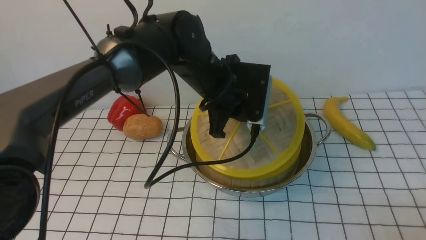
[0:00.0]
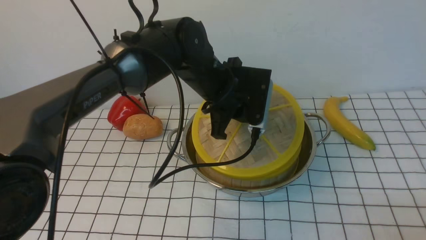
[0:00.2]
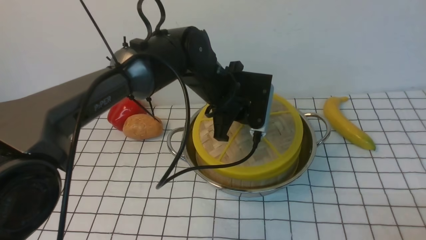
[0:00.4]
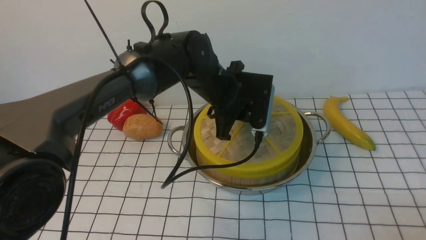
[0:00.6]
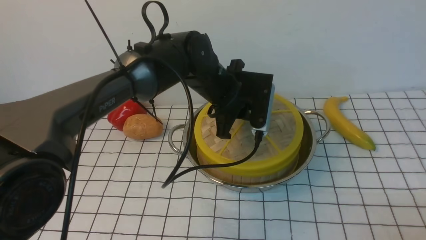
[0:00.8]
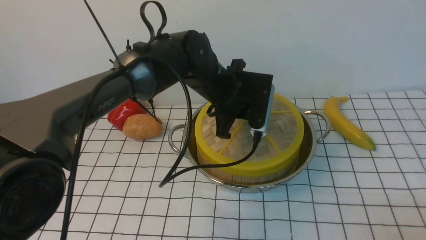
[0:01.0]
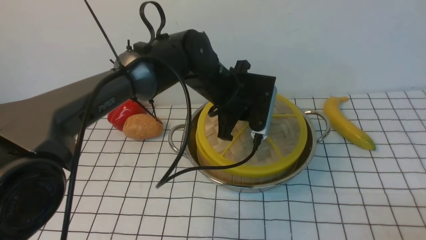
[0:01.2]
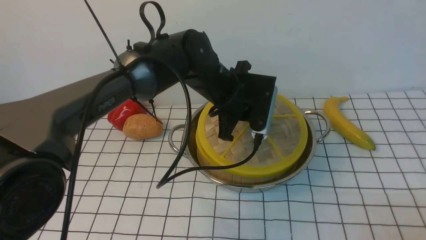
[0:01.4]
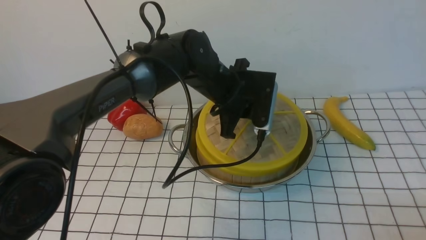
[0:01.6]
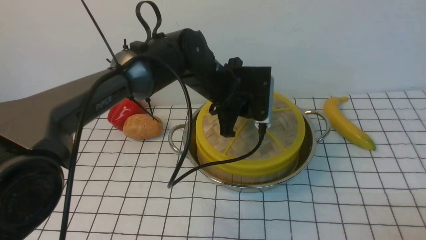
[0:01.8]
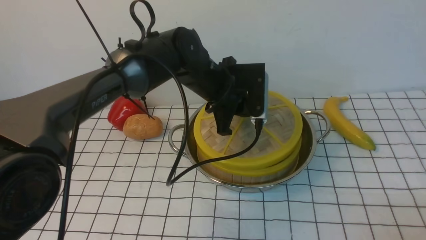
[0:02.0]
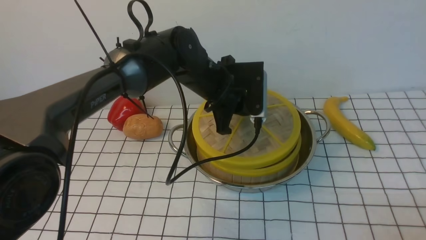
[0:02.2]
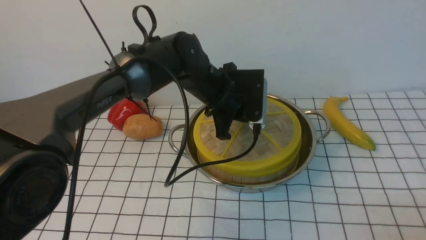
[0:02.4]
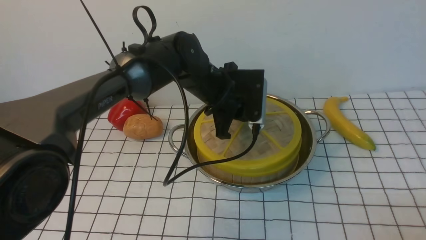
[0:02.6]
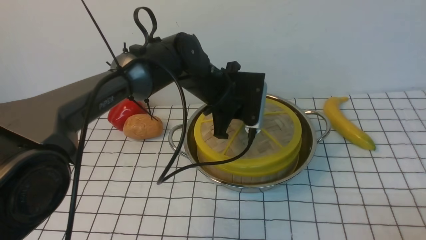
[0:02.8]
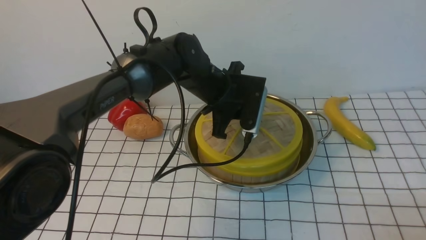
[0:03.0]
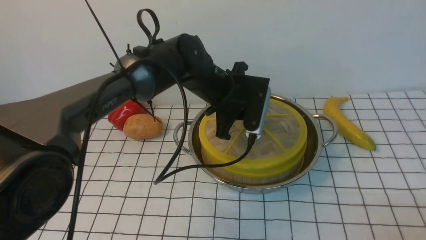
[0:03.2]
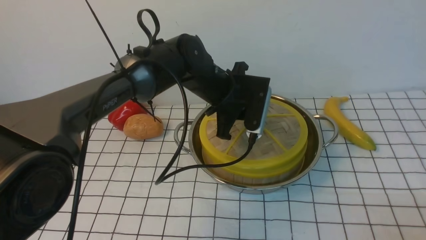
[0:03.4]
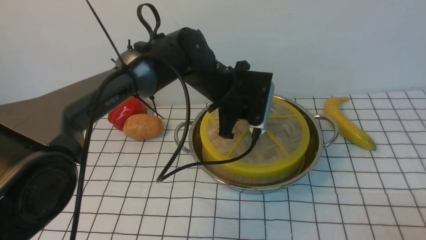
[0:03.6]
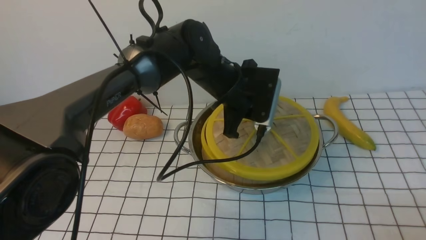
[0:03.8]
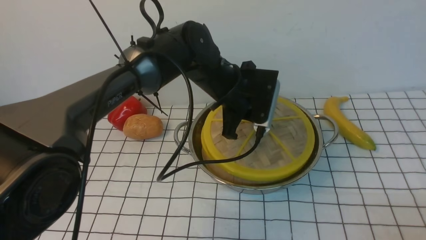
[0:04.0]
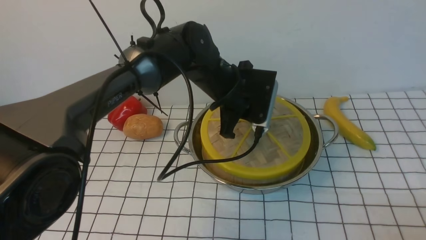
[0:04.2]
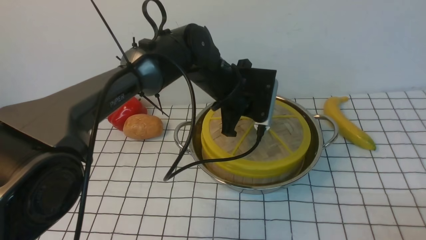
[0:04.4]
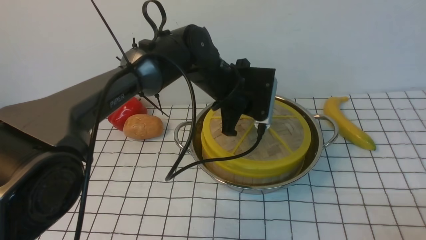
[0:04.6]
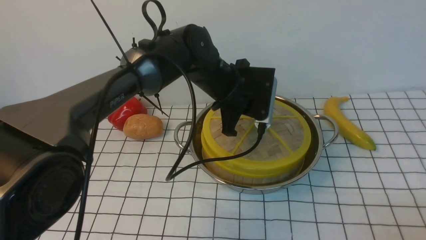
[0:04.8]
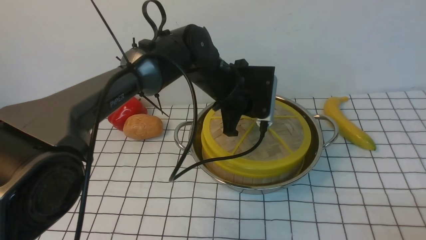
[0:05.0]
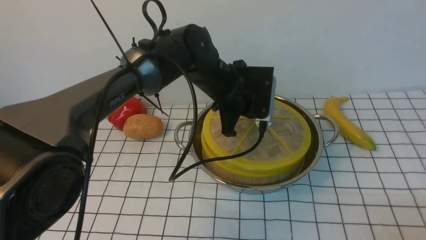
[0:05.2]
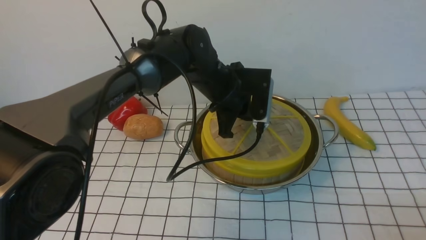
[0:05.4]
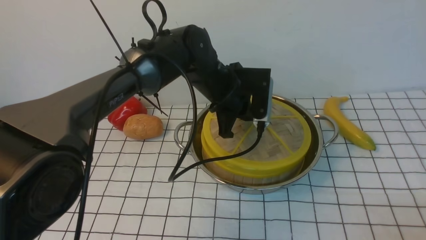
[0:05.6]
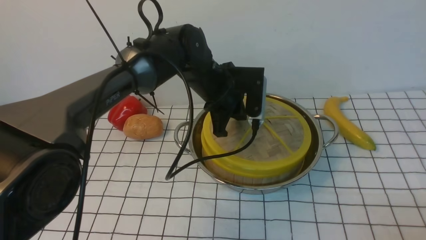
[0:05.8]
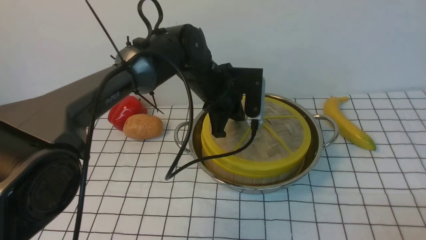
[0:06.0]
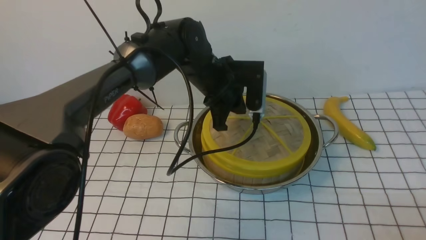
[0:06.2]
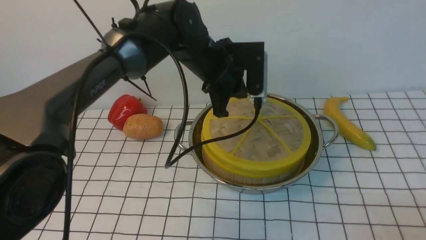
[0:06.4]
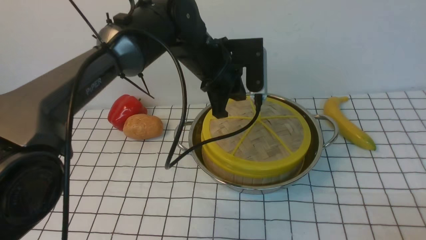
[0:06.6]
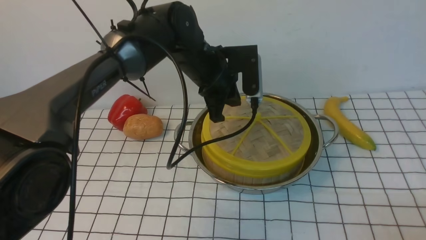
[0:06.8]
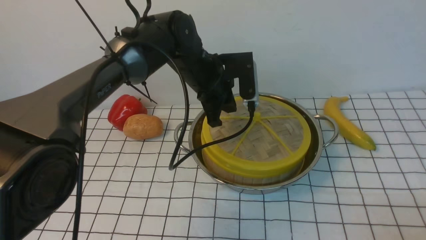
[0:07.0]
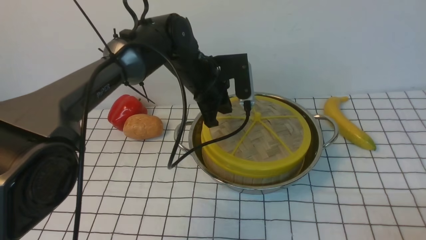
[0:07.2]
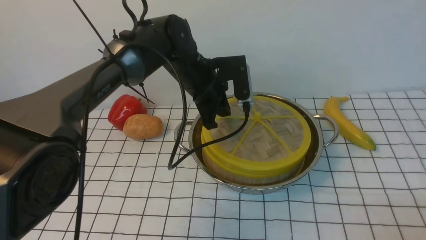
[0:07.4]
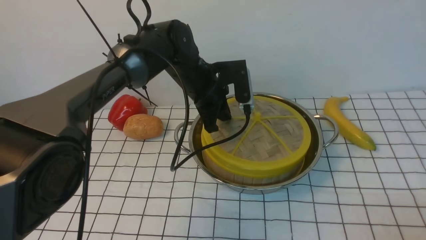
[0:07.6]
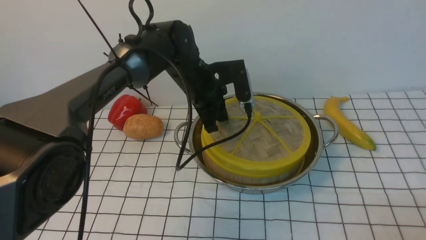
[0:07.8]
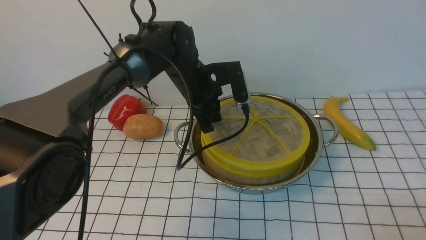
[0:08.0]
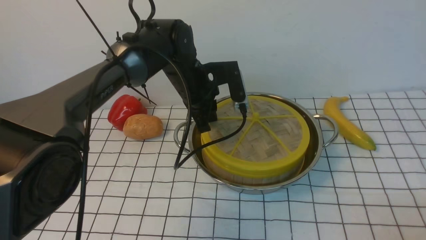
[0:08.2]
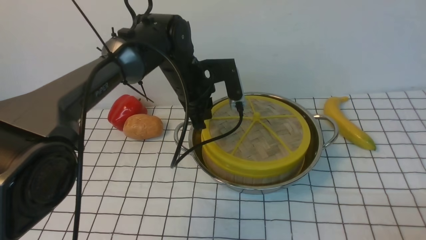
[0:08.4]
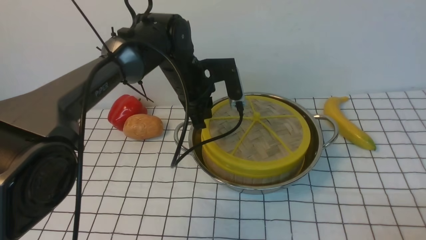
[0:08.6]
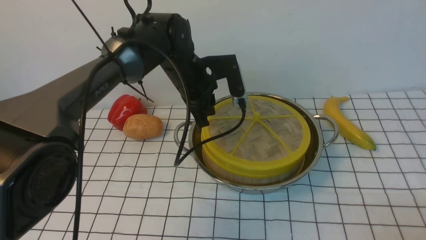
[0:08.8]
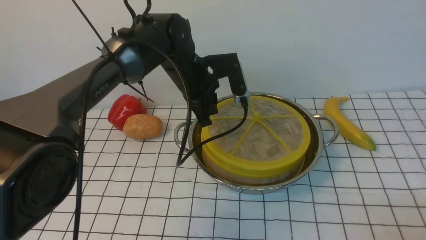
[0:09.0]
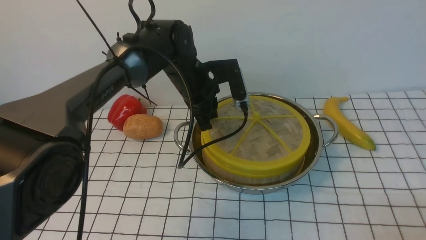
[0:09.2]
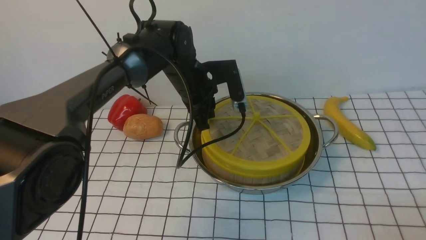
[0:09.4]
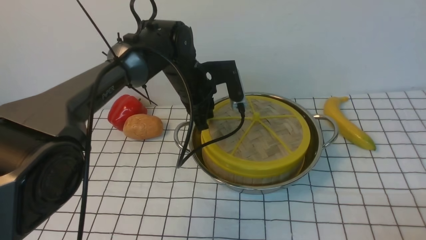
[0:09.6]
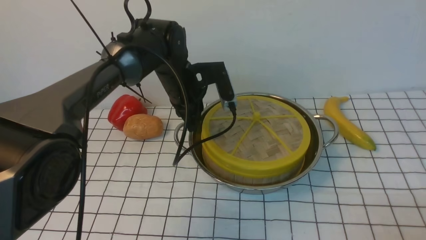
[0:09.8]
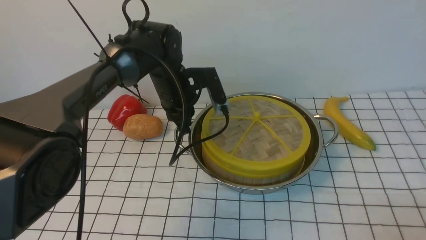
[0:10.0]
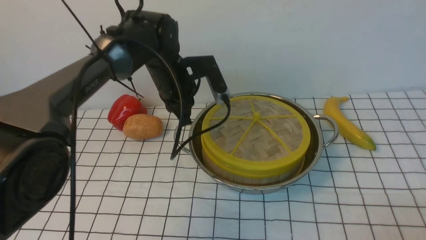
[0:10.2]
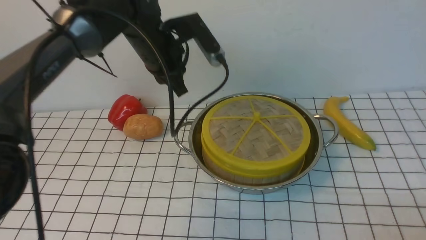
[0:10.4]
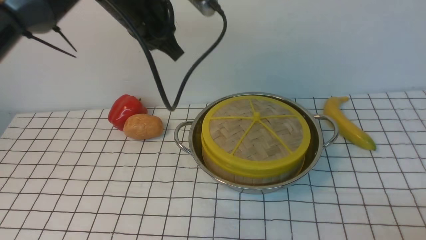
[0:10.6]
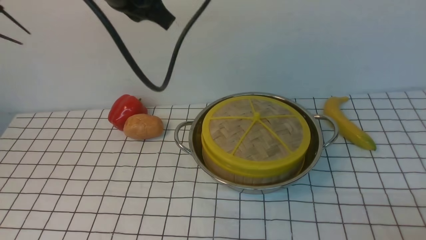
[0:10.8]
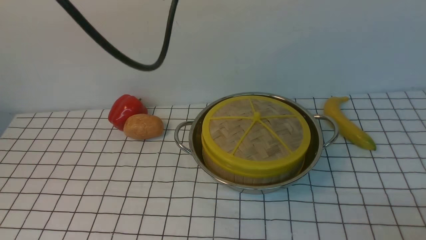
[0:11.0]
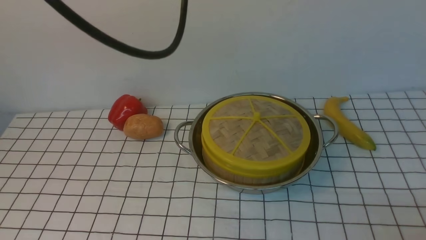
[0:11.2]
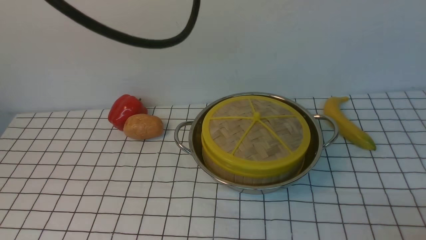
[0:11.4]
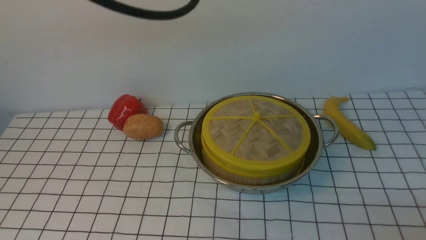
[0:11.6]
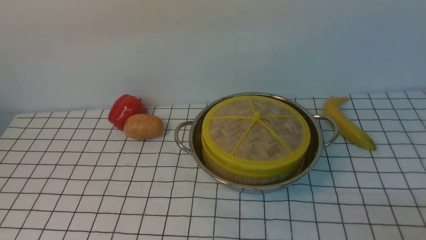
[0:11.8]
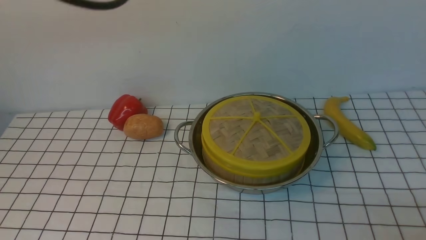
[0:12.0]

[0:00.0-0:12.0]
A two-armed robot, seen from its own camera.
Task of the whole recording: place the steamer in the pot on the white tablecloth, and put the lid on the steamer.
Step, 0:00.0 to 0:10.4: use the left arm to place the steamer lid on the steamer.
0:01.6 to 0:06.0: There are only small adjustments of the grippers.
0:06.0 to 0:07.6: The grippers move only a little.
0:07.6 to 0:09.0: There are only small adjustments of the grippers.
0:09.0 to 0:10.4: The left gripper is displaced upward by about 10 cm.
0:10.4 to 0:12.0: The left gripper heads upward and backward, covering approximately 25 cm.

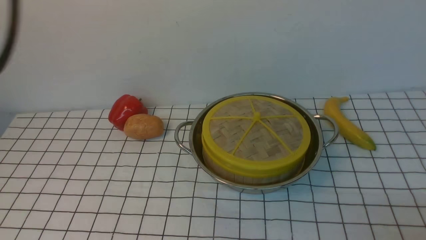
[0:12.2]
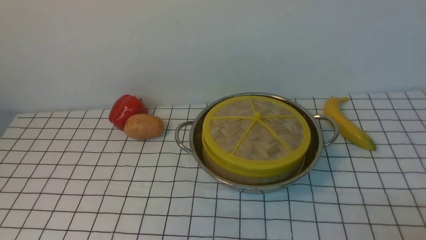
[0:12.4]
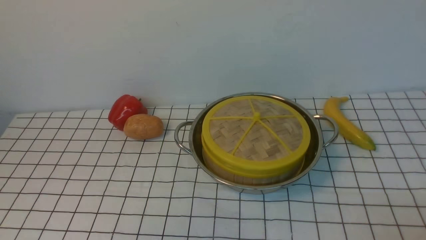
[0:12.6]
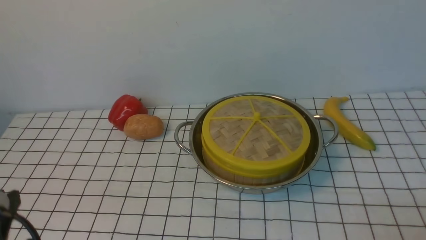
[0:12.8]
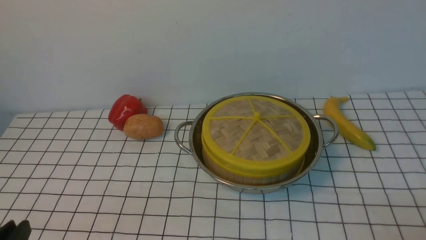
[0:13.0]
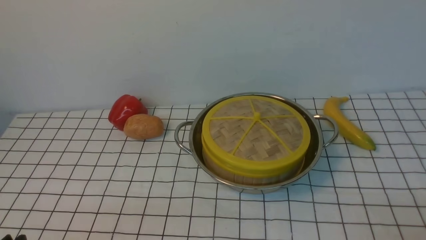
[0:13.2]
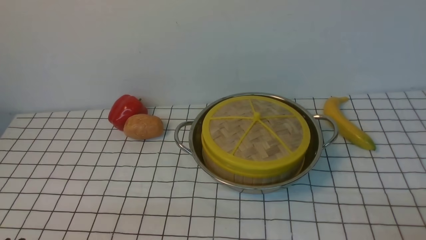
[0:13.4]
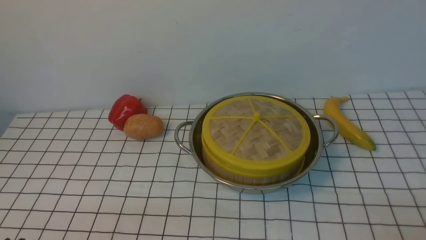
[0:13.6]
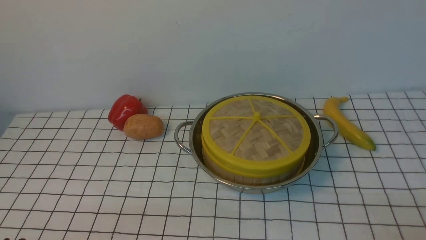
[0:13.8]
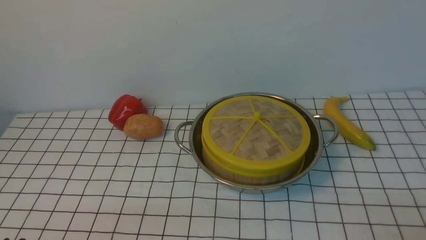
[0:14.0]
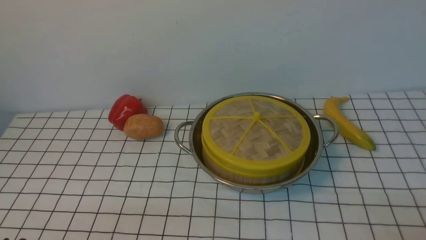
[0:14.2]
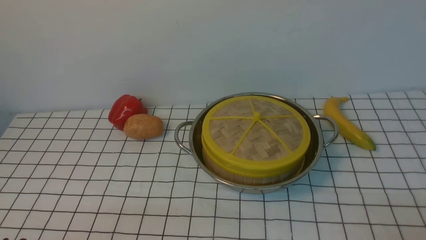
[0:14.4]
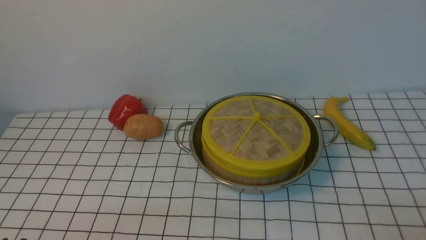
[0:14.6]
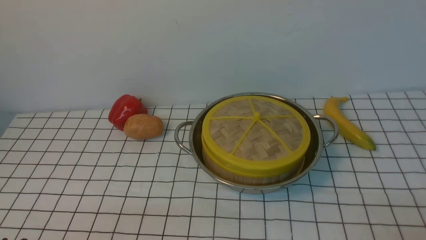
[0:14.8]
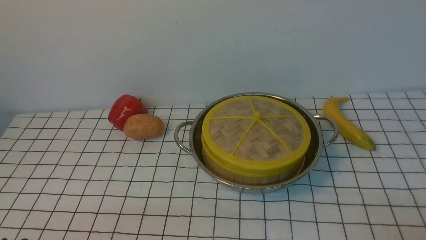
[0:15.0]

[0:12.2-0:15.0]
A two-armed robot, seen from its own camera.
Task of the whole recording: place the steamer in the pot on the white tablecloth, and put the lid on the steamer.
0:12.2 to 0:13.6: The left gripper shifts approximately 35 cm downward and backward.
0:13.6 to 0:15.0: The two grippers keep their place.

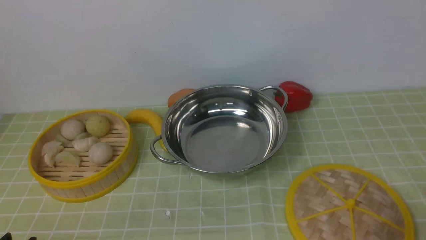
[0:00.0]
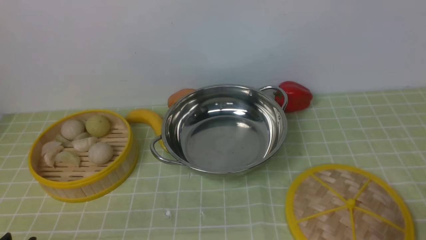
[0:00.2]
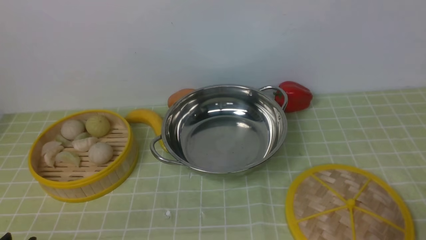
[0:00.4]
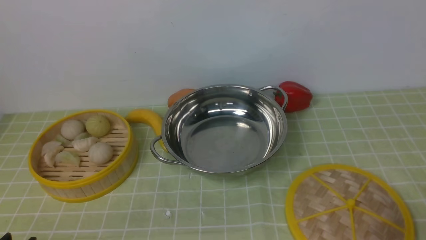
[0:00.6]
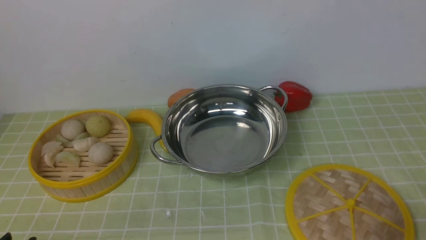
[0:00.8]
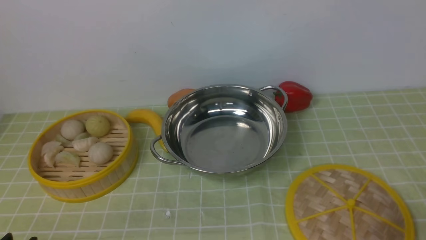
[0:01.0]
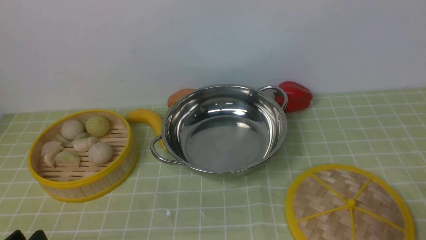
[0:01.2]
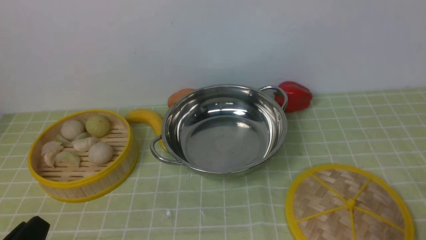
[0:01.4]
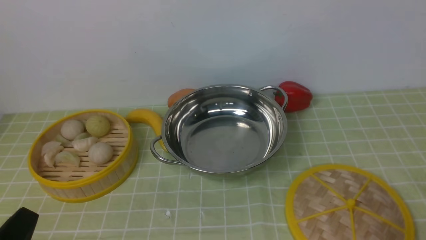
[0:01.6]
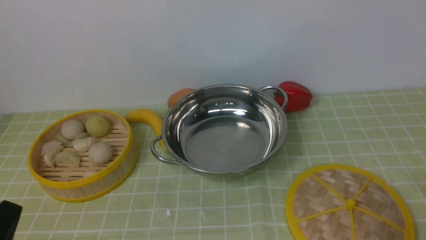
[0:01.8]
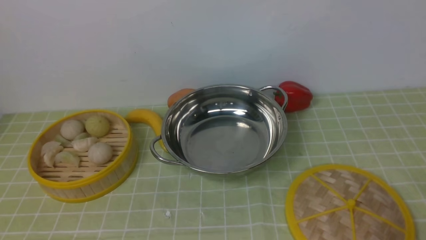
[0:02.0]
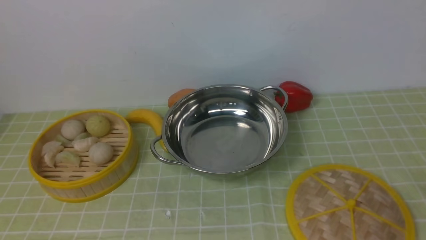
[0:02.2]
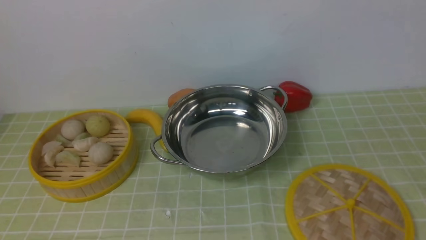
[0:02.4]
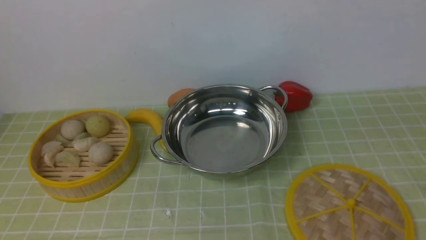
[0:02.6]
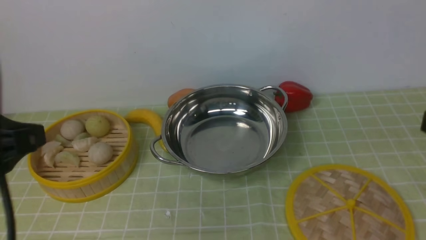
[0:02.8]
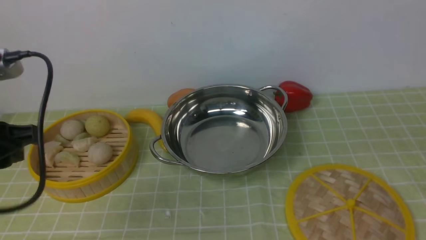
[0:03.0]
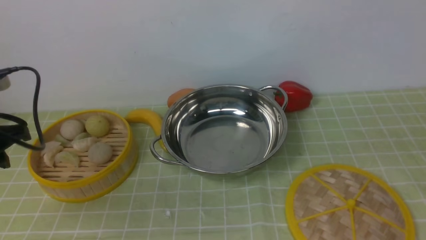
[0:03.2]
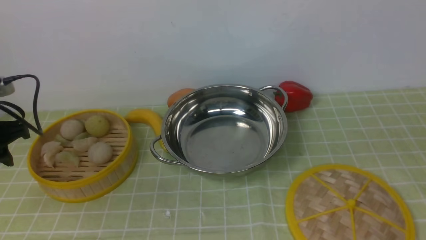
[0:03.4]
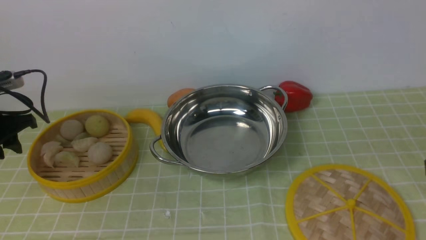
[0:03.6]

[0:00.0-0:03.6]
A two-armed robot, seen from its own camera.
Task of the whole recording: place the steamer in the pot on the green tablecloth, and put the lid on the steamer.
0:01.8 to 0:03.6: The left gripper shifts approximately 30 cm forward and to the left.
